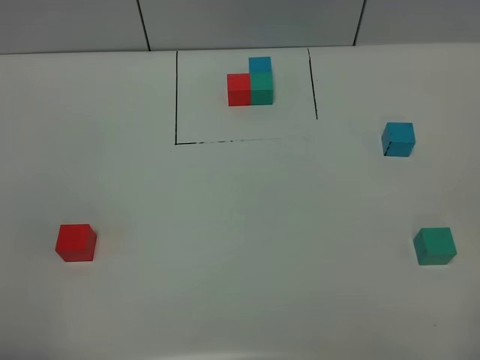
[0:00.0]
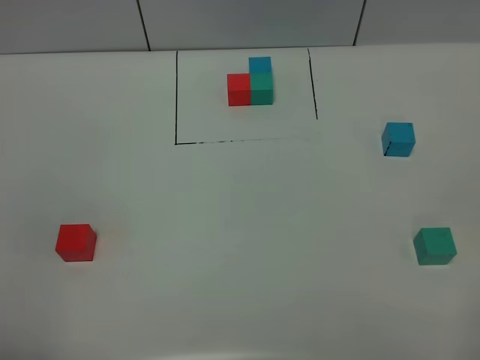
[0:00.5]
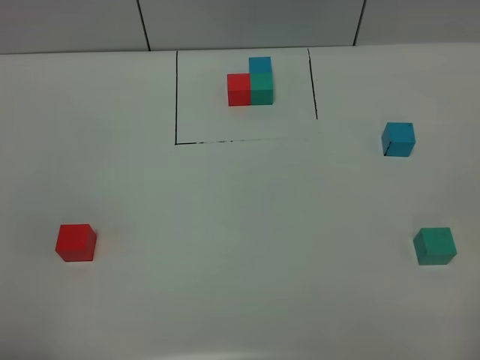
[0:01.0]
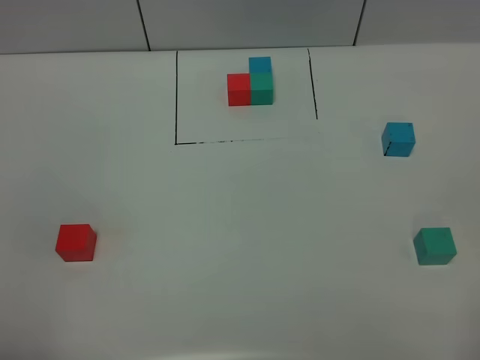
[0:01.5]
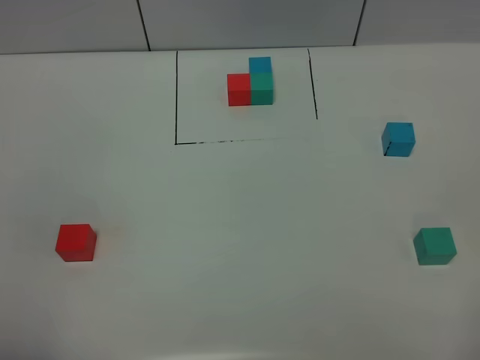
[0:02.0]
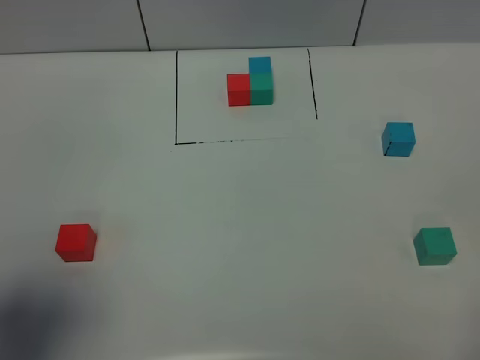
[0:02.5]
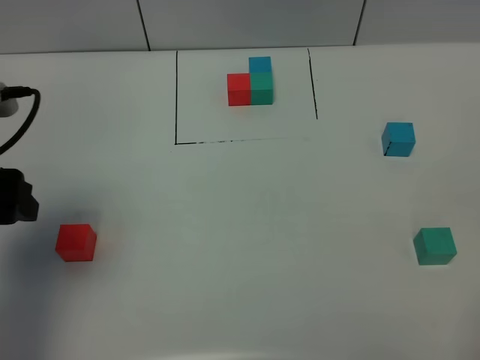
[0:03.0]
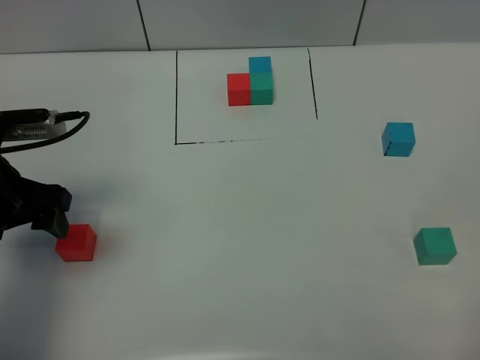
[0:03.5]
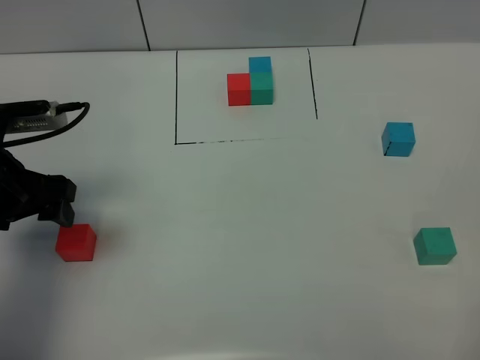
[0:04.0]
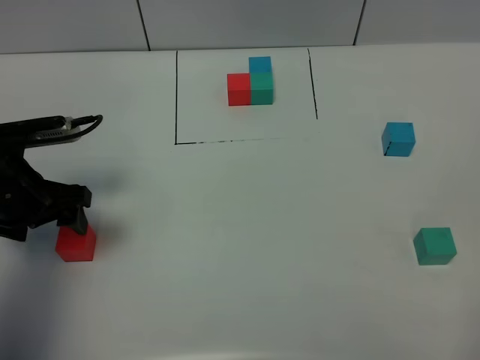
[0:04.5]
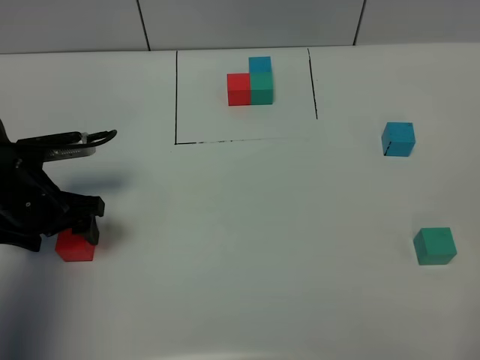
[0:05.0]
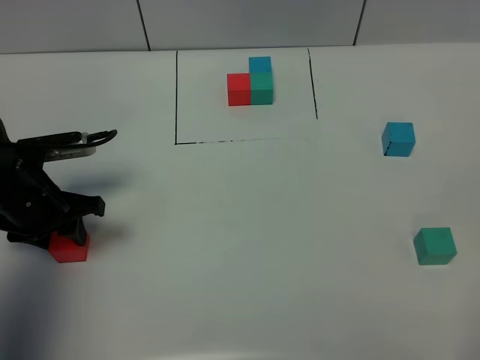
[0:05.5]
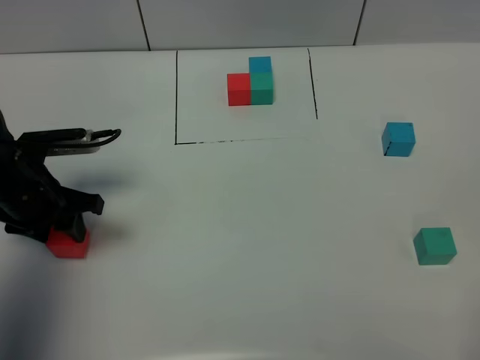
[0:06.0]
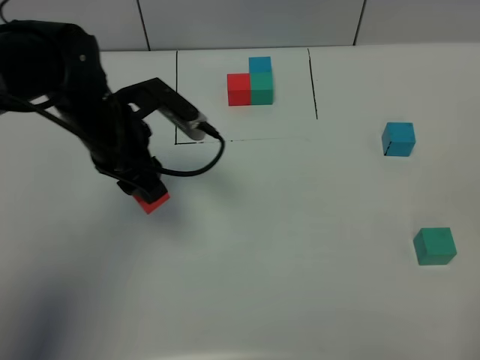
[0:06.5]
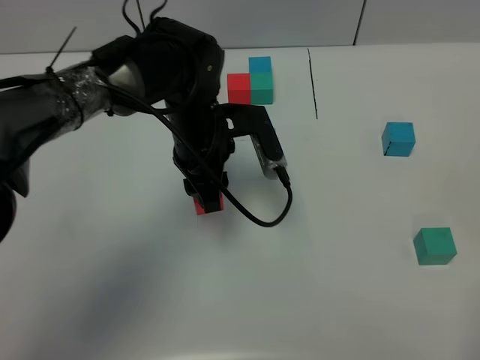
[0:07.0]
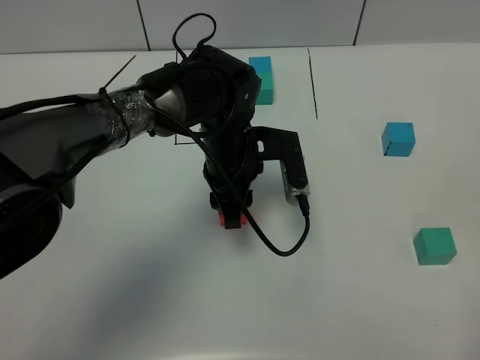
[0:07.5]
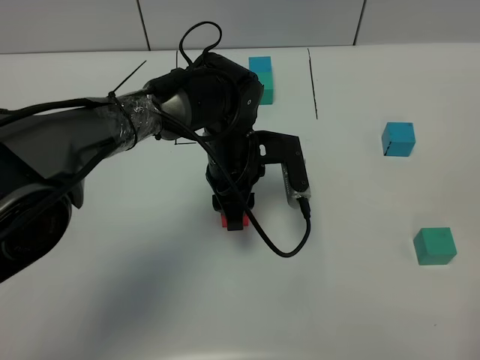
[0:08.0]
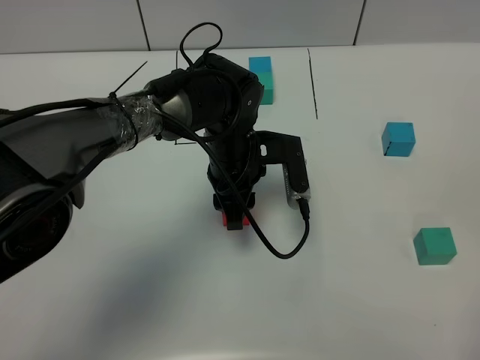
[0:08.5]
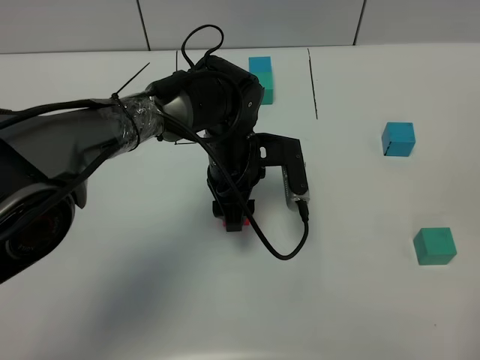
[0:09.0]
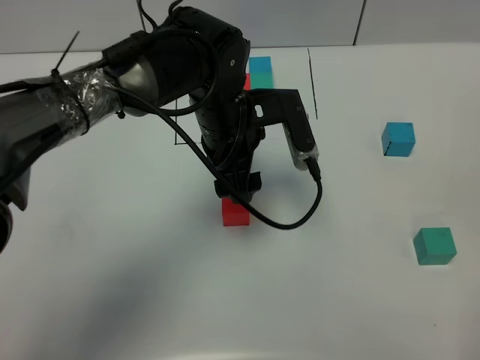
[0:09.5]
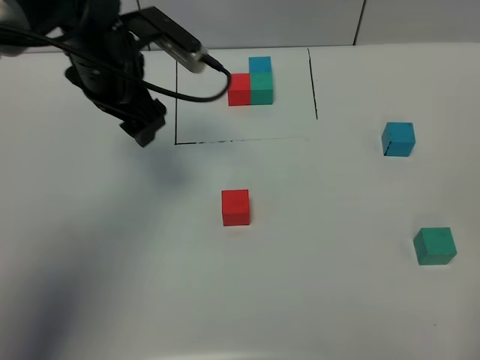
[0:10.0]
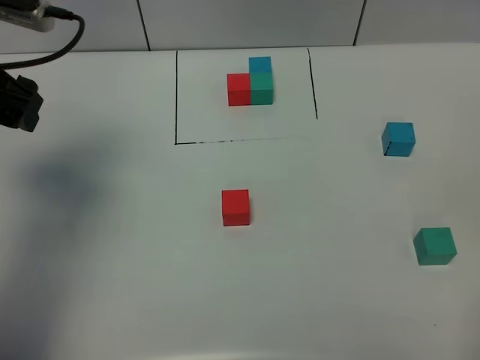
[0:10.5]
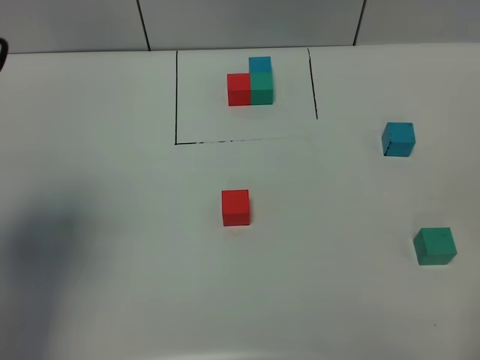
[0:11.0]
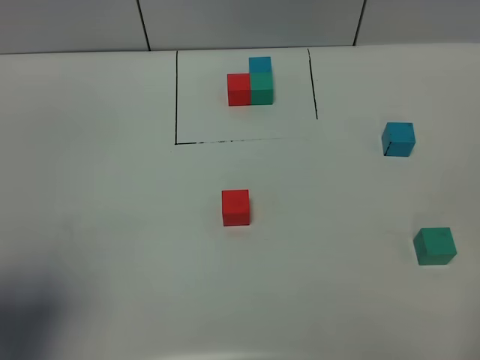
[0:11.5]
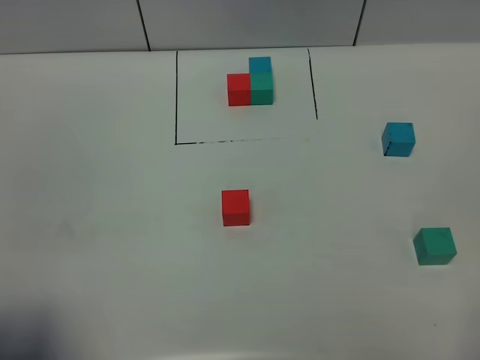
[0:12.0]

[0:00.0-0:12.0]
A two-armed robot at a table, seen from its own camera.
Task of the whole recording: According to the building block template in front, assemble the scattered blocks together.
Step, 0:00.0 to 0:08.5: Put the red build block in the center of the table.
0:00.0 to 0:02.0: Both grippers stay put.
0:02.0 to 0:04.0: The left gripper shifts about 25 cm forward.
0:04.0 to 0:06.0: The left gripper heads downward, covering roughly 5 cm, and closes its fingers.
0:06.0 to 0:08.0: The left gripper is displaced to the right by approximately 25 cm.
0:08.0 to 0:10.0: The left gripper is displaced to the left and upward by some 20 cm, and opens.
0:10.0 to 0:12.0: The left gripper moves backward and to the left, some 35 cm.

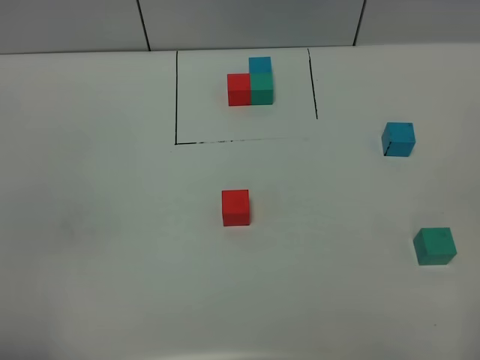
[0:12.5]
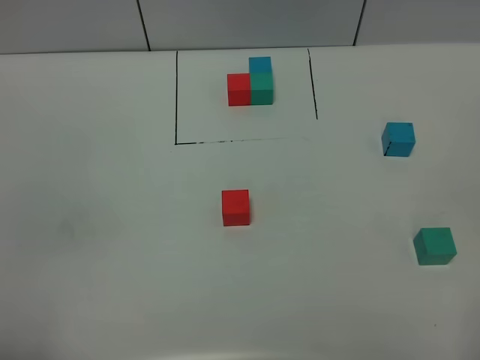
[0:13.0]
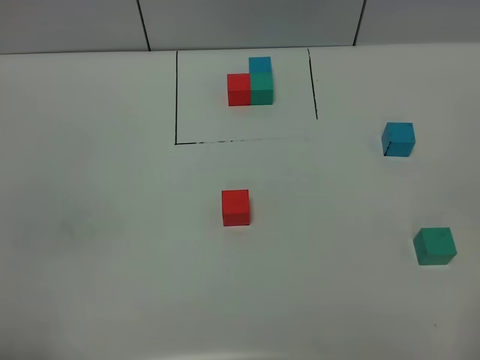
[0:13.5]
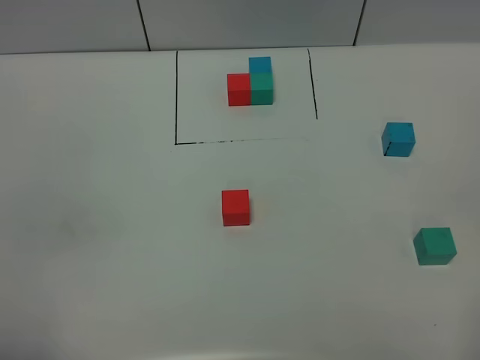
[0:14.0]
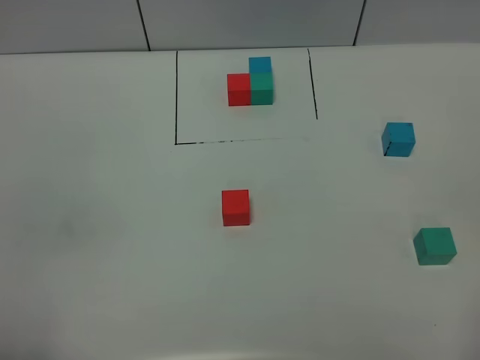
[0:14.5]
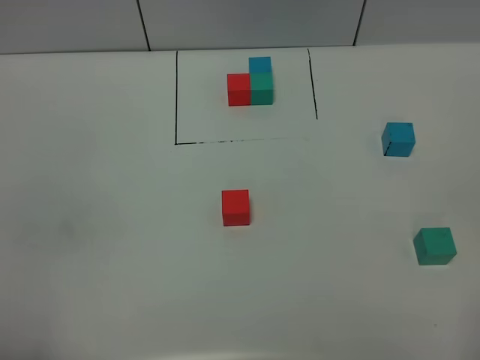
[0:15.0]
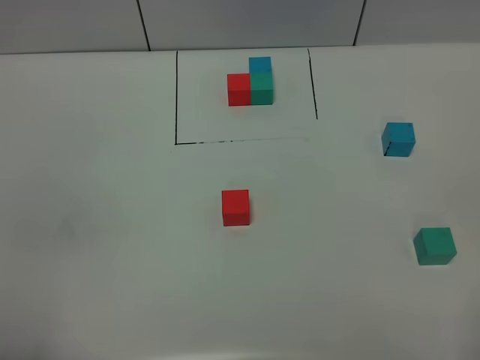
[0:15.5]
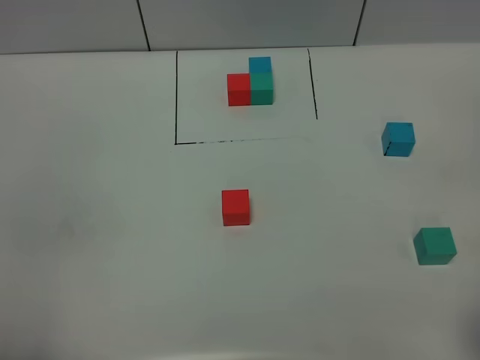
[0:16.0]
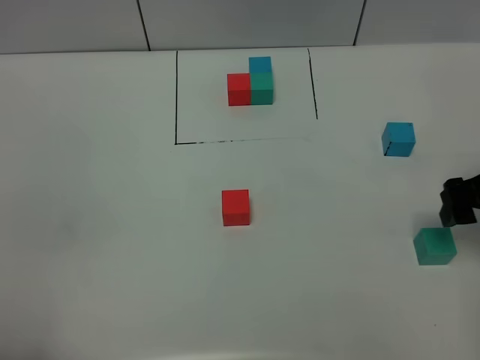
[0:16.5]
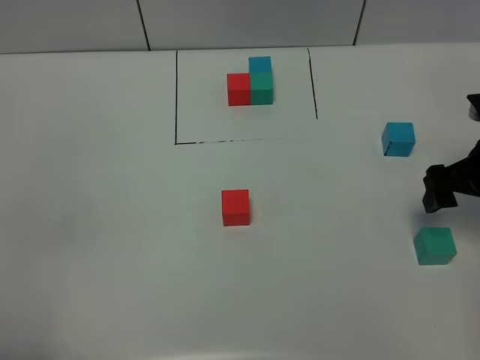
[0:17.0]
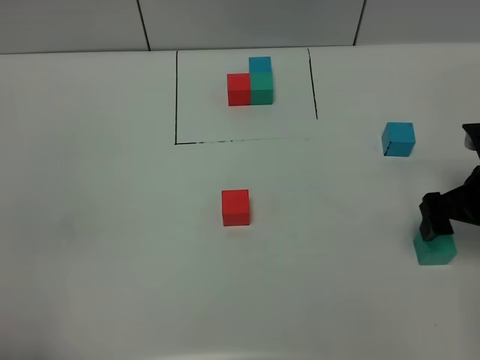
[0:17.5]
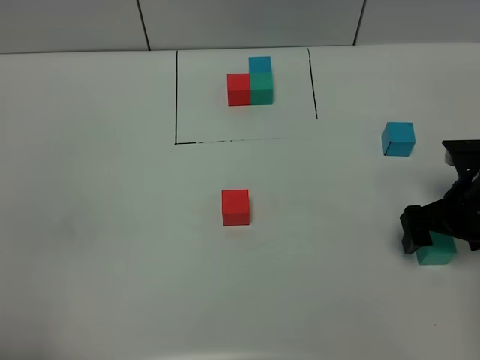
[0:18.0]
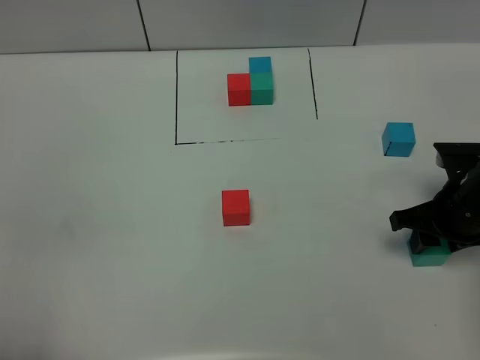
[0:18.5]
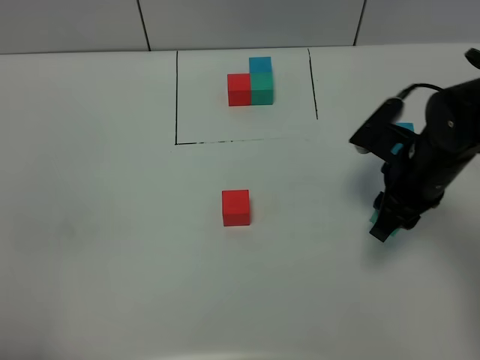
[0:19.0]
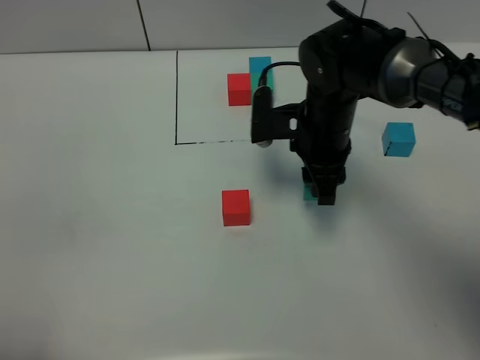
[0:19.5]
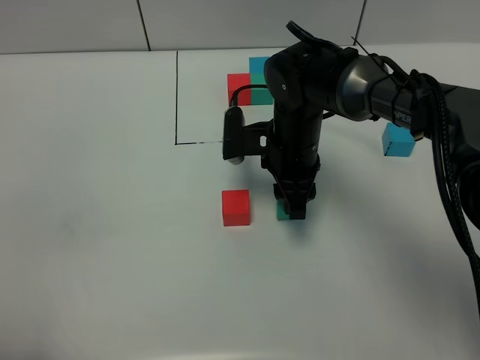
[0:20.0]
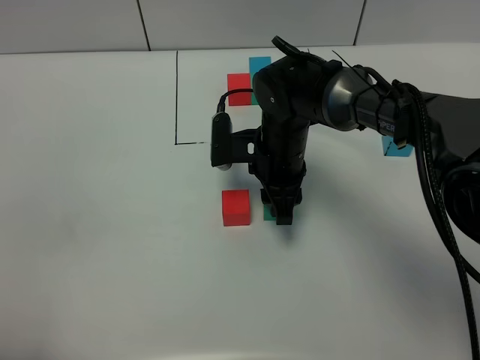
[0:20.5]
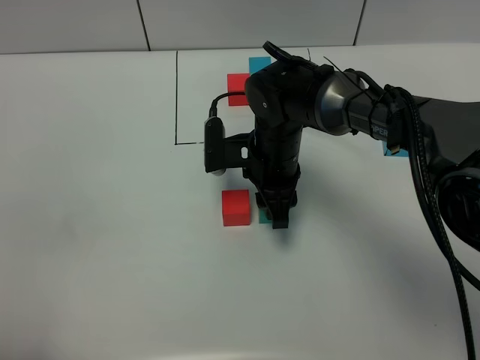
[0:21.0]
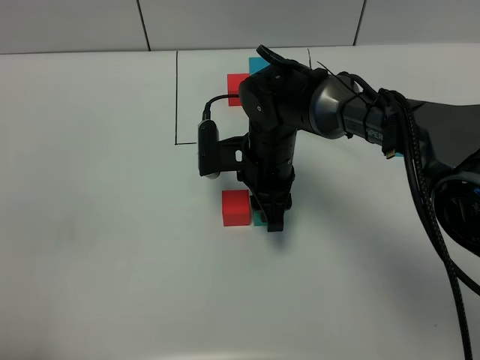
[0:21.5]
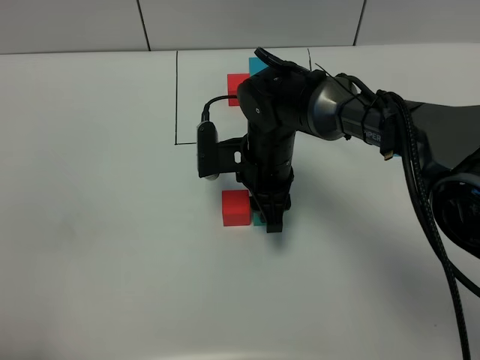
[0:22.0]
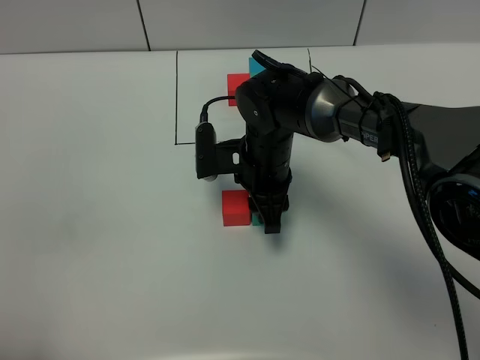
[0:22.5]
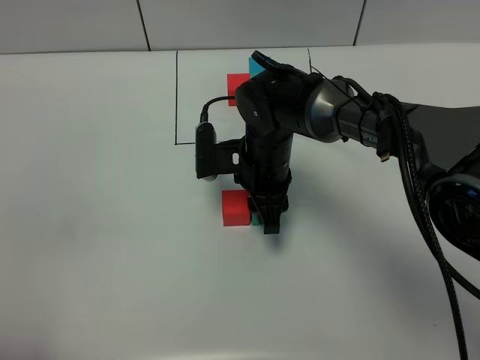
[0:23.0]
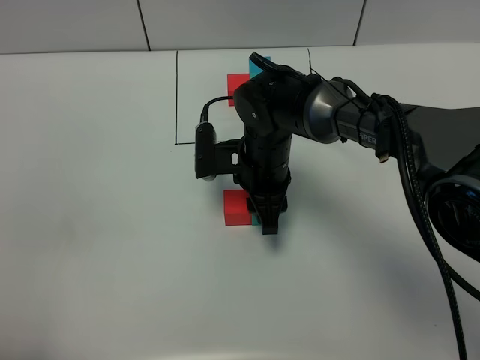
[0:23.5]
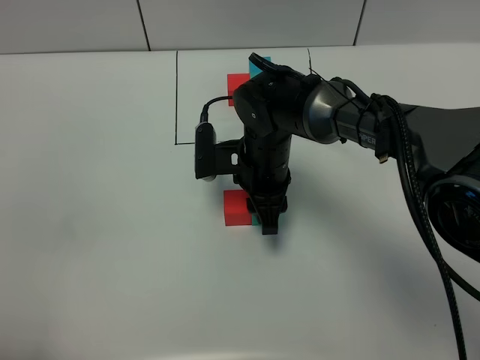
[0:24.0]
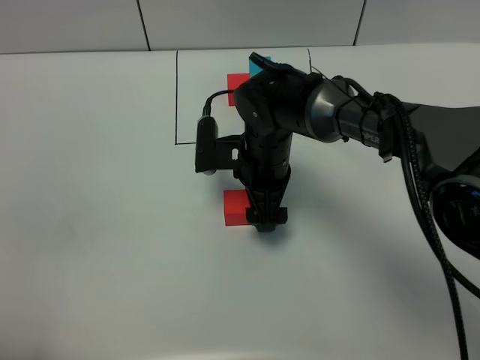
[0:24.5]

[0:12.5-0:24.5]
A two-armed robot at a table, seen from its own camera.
Task of the whole recording: According to the building block template in front, assemble the scattered blocks together.
Step, 0:12.5 to 0:24.5: Put the green build block on the right of the red build block.
0:12.5 to 0:14.5: Neither gripper changes place.
0:14.5 to 0:16.5: The right gripper shifts some 25 cm forward.
0:16.5 to 0:18.5: The right gripper travels downward by about 5 cm, and closes.
0:18.5 to 0:20.5: The right gripper is displaced to the left by some 20 cm.
0:20.5 to 0:22.5: The grippers stay close to where they were, moving slightly.
0:22.5 to 0:24.5: The right gripper opens its fingers.

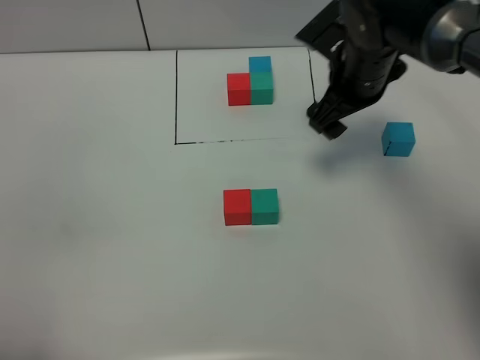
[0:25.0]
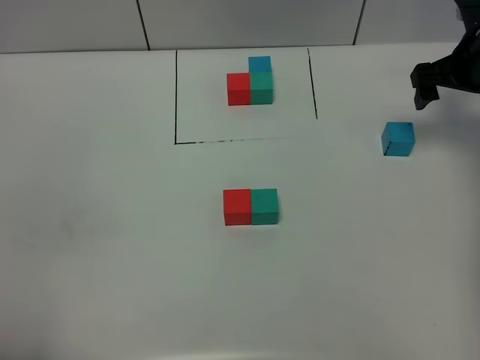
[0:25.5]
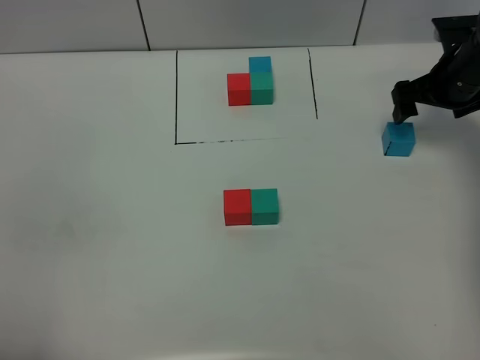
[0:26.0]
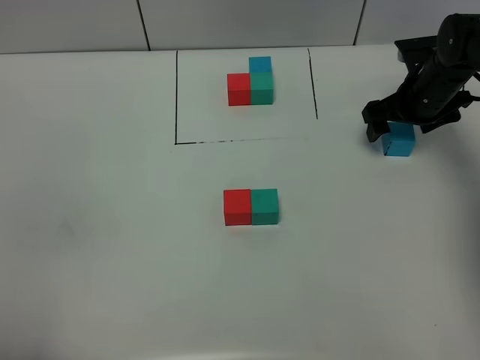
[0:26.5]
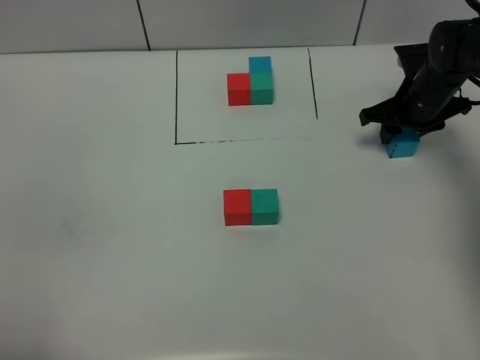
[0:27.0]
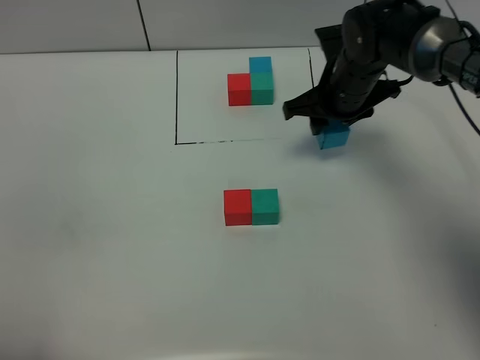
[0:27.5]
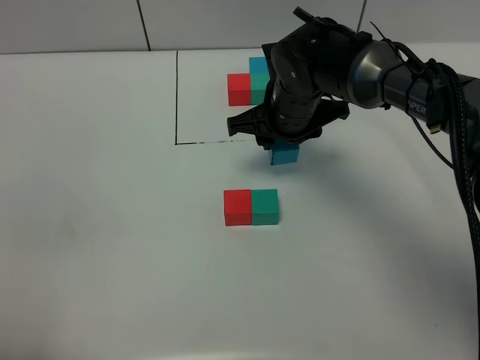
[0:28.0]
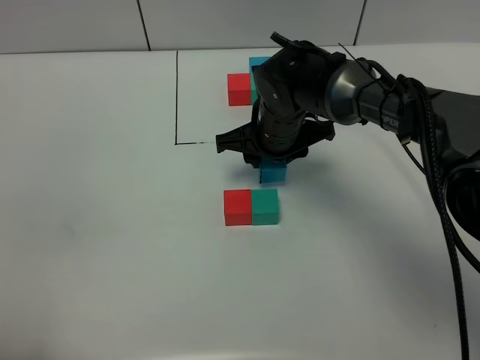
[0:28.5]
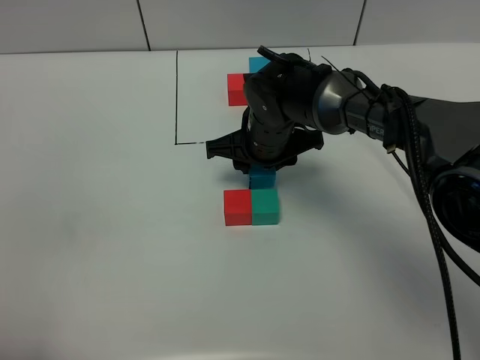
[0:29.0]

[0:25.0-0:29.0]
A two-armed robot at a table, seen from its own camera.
Task of the whole recording: According to the building block template in front, assemble the scattered blocks together.
0:25.0 to 0:27.0: The right gripper goes about 15 cm downward and to the right, and closes up.
0:27.0 to 0:29.0: The right gripper moves to the left, roughly 20 cm.
